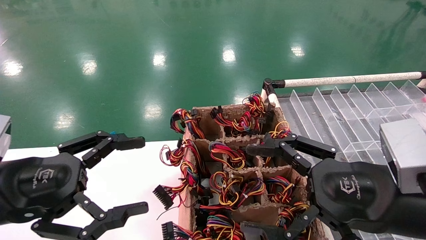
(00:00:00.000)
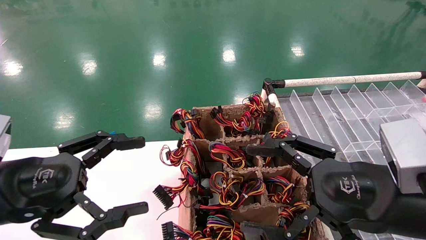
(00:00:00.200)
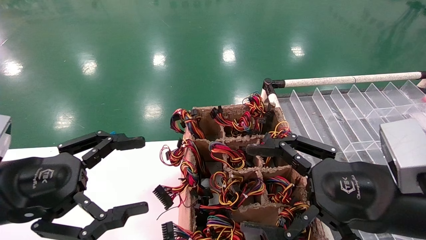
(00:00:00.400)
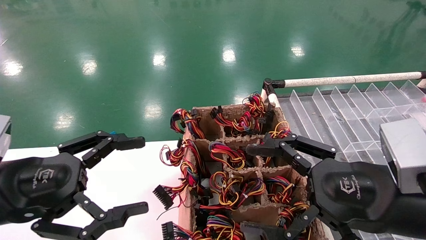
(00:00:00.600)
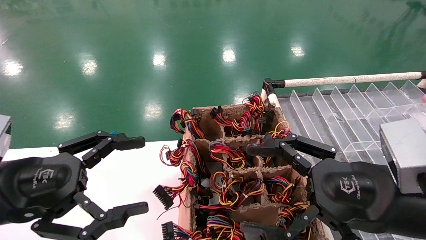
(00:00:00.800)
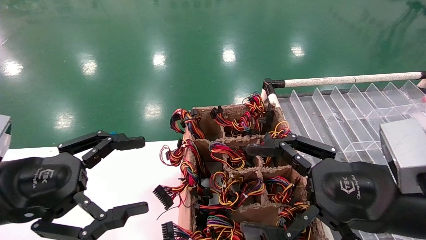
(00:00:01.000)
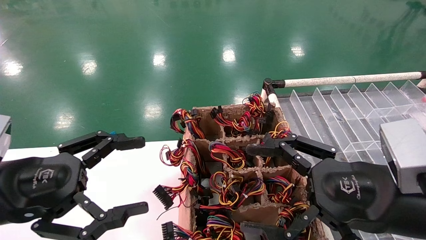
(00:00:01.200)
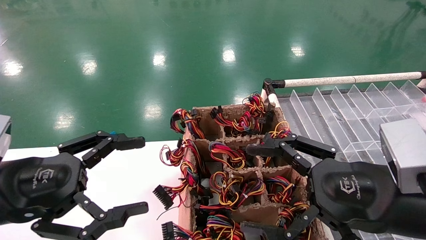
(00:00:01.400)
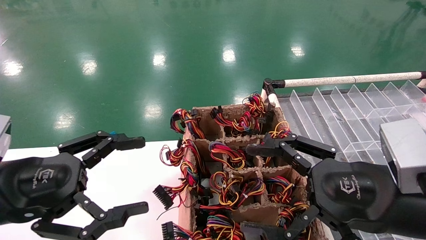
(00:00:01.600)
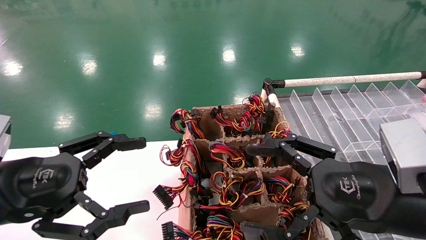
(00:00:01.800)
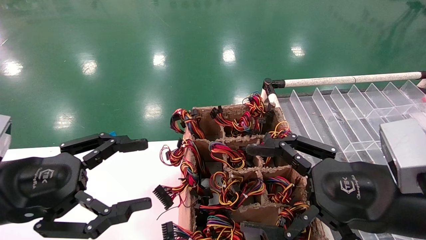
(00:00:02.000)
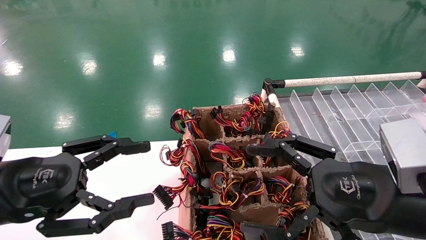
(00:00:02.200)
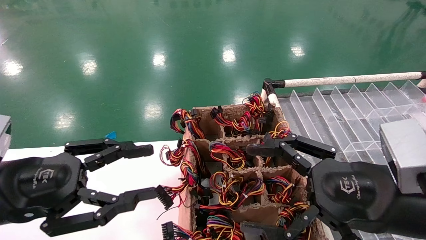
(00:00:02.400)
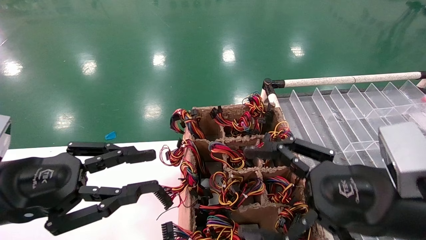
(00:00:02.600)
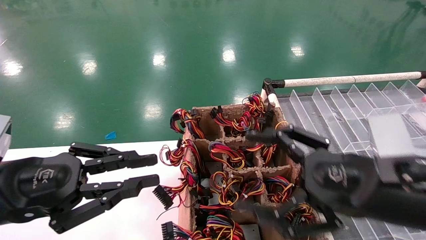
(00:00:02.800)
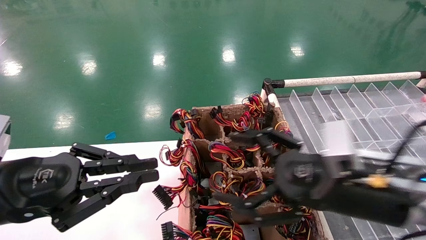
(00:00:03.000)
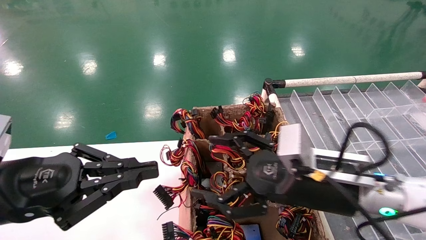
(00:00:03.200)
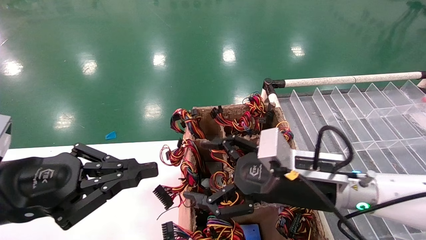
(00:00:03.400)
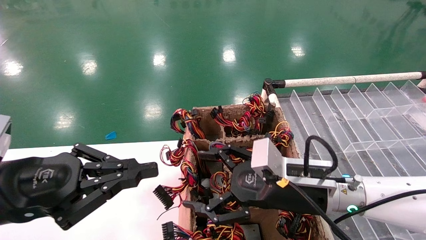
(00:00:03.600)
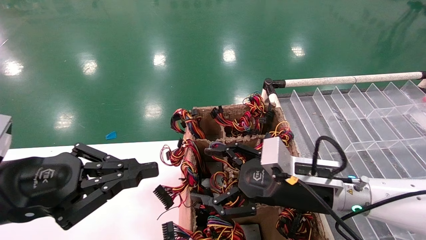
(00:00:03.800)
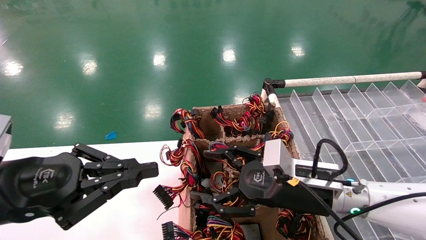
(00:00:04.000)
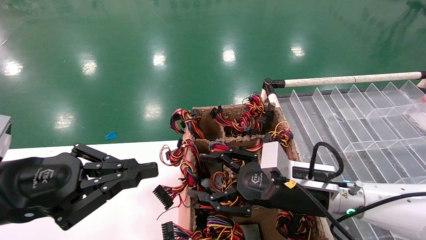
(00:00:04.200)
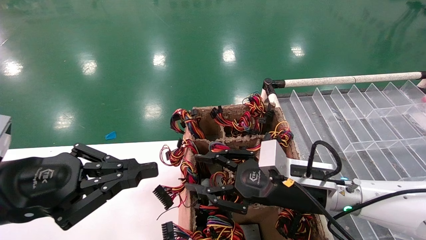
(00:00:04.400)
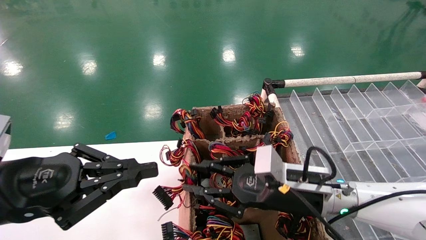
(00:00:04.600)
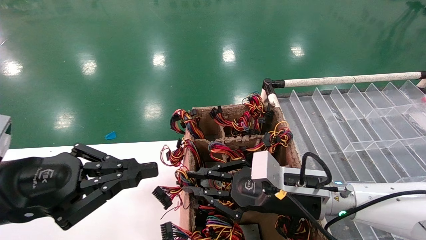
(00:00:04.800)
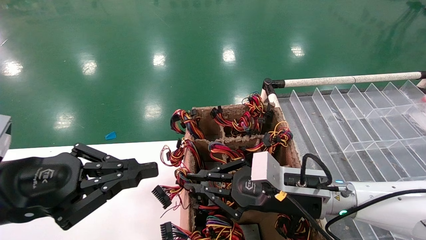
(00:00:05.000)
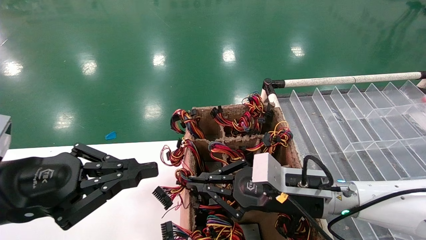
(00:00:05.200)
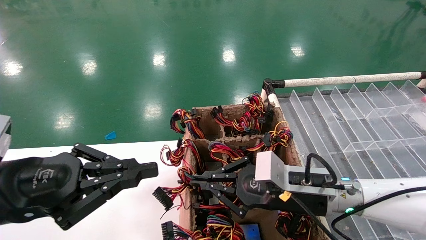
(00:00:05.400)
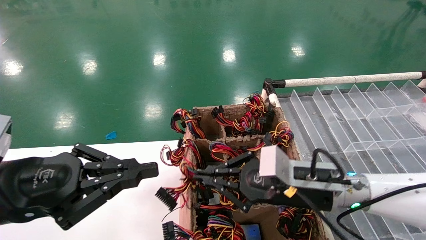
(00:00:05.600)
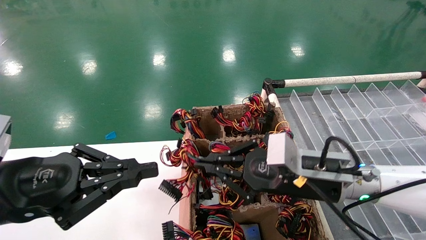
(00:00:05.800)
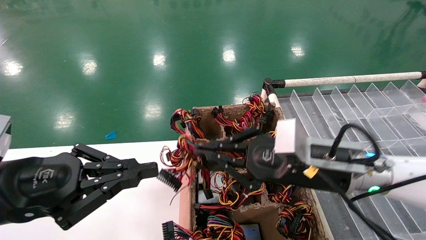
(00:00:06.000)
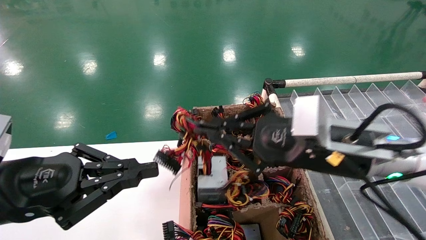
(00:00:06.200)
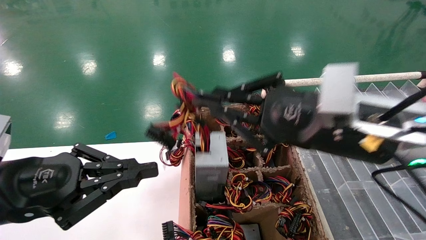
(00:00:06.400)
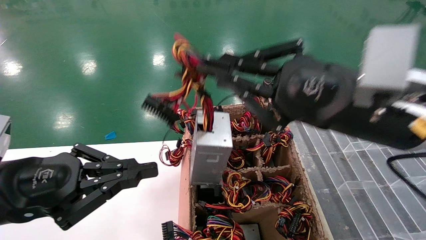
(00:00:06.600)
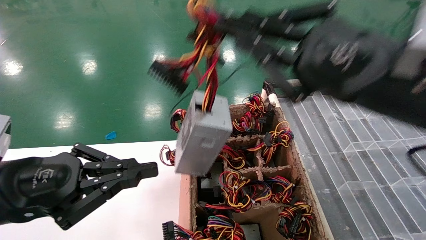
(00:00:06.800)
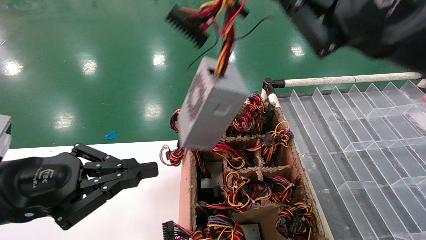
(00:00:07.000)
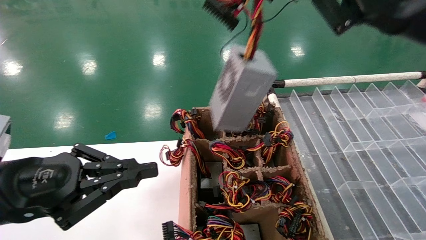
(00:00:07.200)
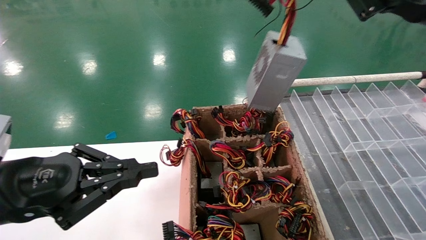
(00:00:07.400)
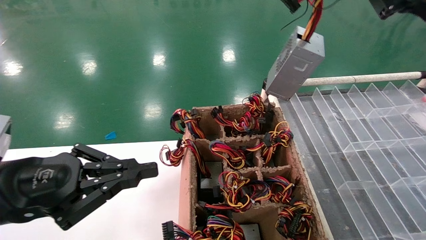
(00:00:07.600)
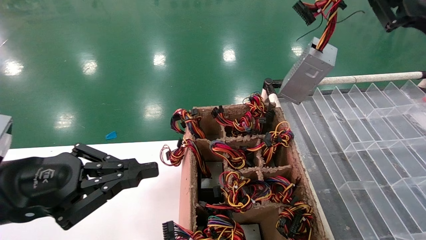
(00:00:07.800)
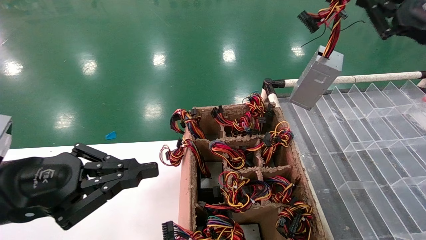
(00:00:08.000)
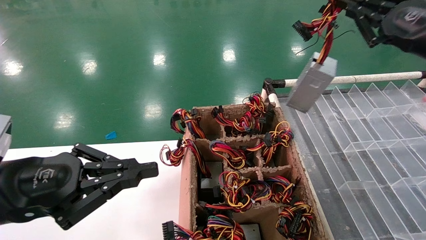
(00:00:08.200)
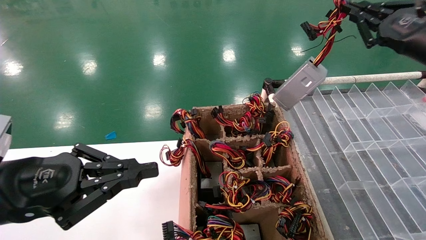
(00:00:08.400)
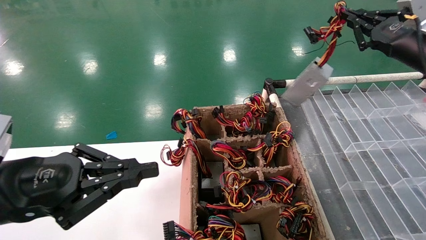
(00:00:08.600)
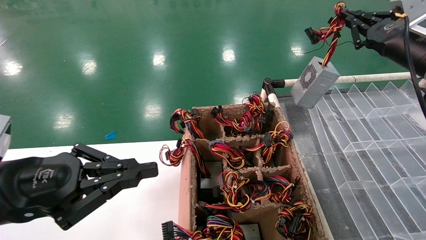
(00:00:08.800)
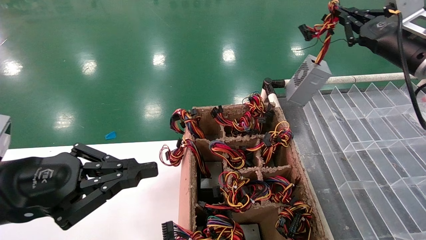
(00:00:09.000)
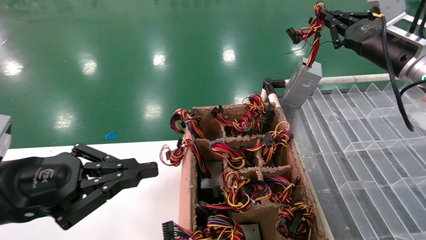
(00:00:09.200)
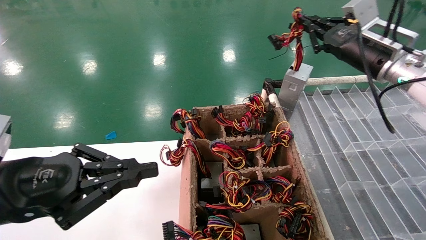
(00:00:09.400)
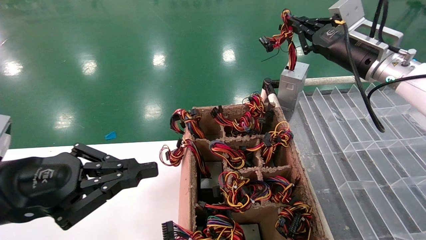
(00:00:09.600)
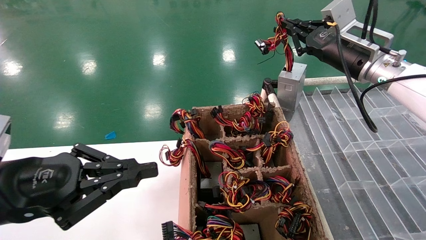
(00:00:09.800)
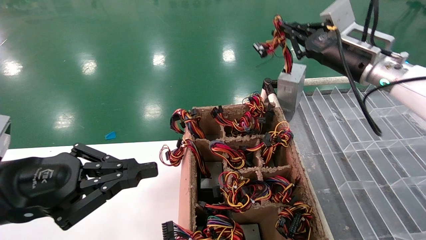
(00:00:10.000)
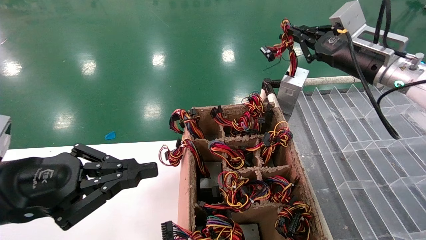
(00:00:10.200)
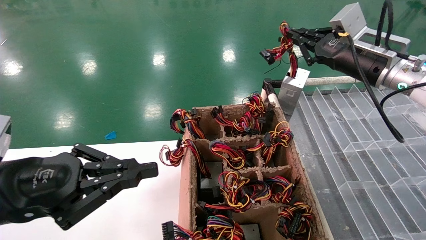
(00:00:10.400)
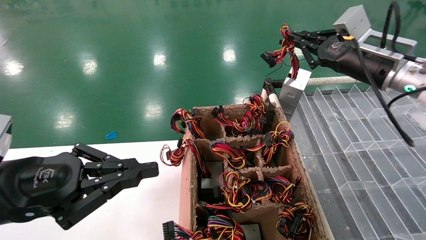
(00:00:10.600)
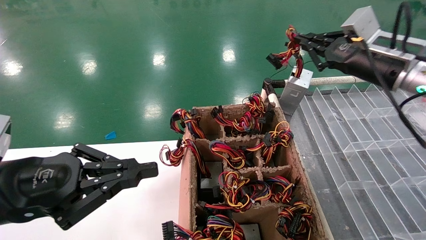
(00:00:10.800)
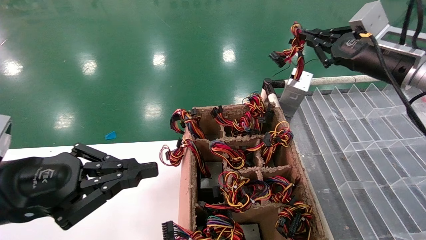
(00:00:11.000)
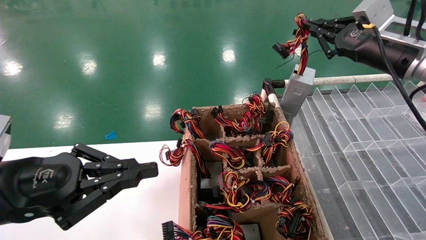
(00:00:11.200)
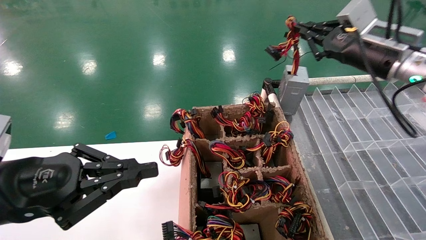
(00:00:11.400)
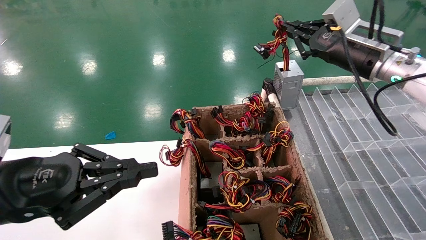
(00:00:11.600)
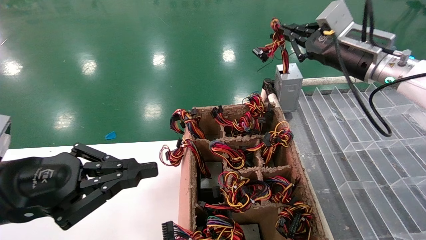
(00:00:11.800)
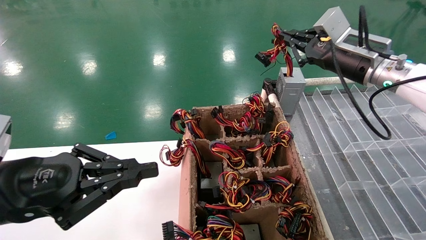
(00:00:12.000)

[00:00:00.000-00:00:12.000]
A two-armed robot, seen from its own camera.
Step, 00:00:03.000 to 00:00:05.000: Grab the main unit power supply from the containment box.
00:00:00.000 to 00:00:01.600: The two grippers keep their place.
00:00:01.600 to 00:00:03.000: The right gripper is displaced forward by about 5 cm; the left gripper closes its fingers.
00:00:03.000 to 00:00:04.400: The right gripper moves forward and downward, roughly 10 cm, and closes.
00:00:04.400 to 00:00:06.000: The right gripper is displaced upward by roughly 10 cm, and closes up.
00:00:06.000 to 00:00:07.600: The right gripper shifts approximately 25 cm upward and to the right.
00:00:07.600 to 00:00:09.000: The right gripper shifts roughly 15 cm forward.
00:00:09.000 to 00:00:10.400: The right gripper is displaced to the left by about 5 cm.
00:00:10.400 to 00:00:12.000: The grippers make only small movements.

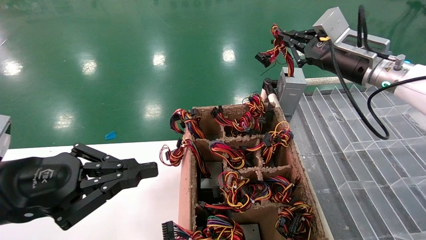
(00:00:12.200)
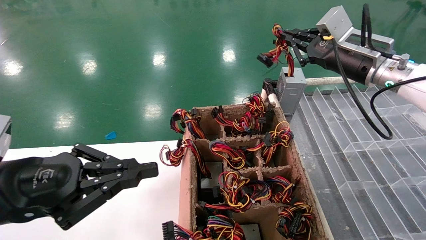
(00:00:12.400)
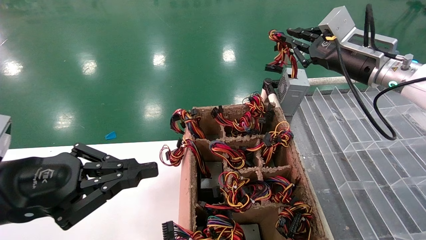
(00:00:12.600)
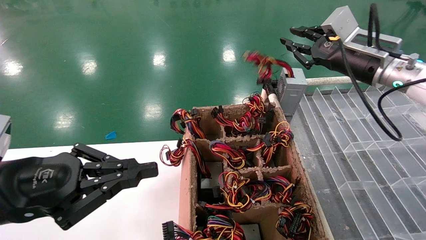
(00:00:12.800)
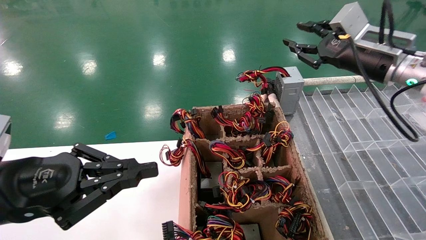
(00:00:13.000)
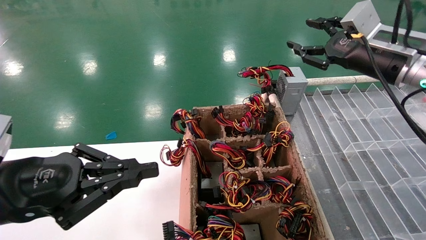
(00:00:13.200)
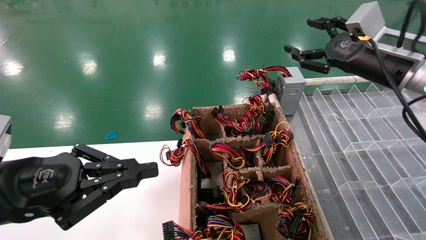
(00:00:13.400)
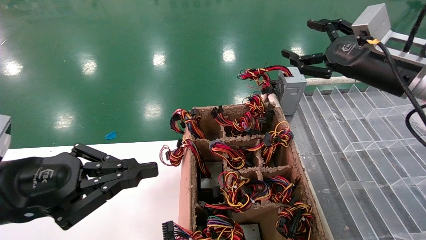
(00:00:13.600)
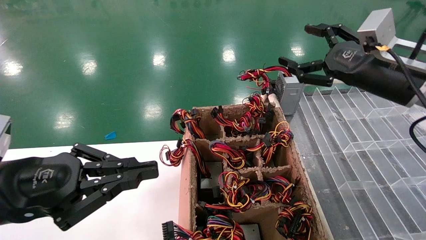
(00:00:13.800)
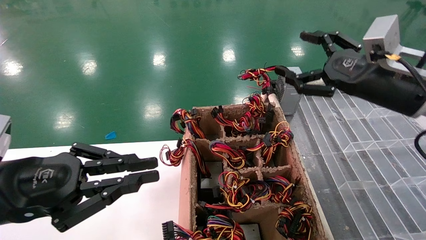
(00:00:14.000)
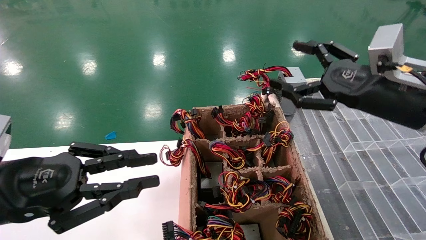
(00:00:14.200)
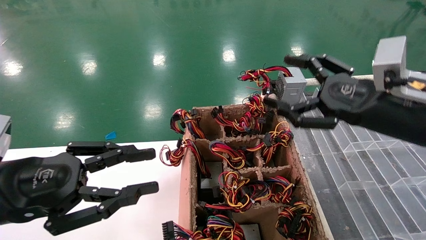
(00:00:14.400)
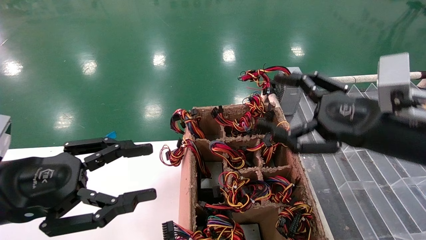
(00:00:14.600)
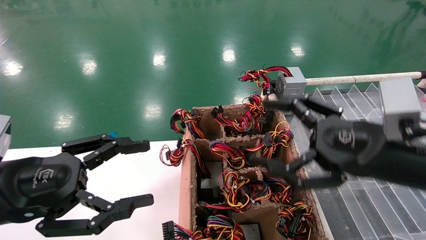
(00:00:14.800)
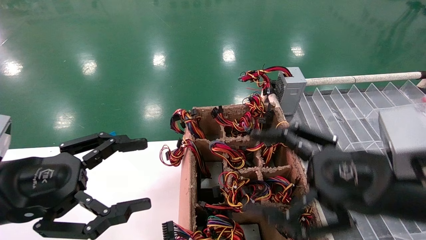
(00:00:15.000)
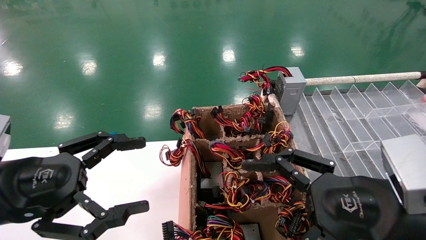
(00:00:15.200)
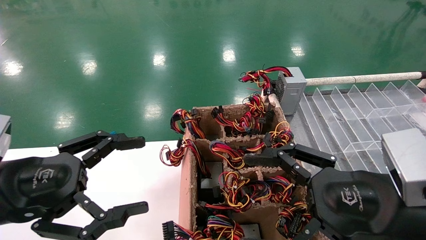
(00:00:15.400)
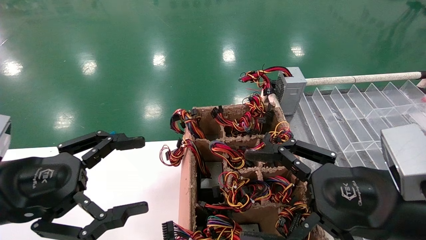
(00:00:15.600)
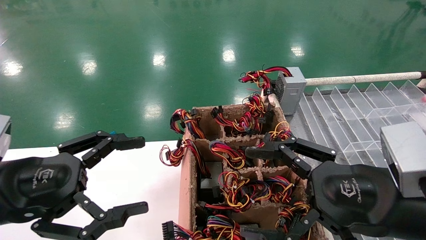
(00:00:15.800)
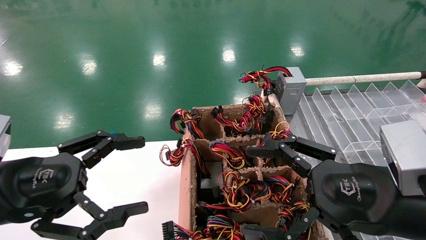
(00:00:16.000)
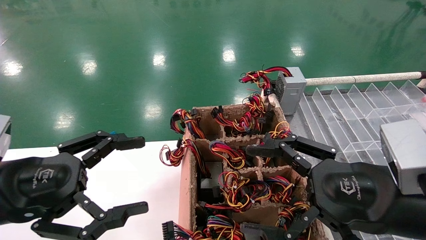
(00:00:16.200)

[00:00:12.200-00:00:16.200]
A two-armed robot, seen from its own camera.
00:00:12.200 to 00:00:13.600: The right gripper moves backward, about 5 cm, and opens up.
00:00:13.600 to 00:00:14.800: The right gripper travels backward, downward and to the left by approximately 15 cm. Meanwhile the left gripper opens up.
00:00:14.800 to 00:00:16.200: The left gripper opens.
